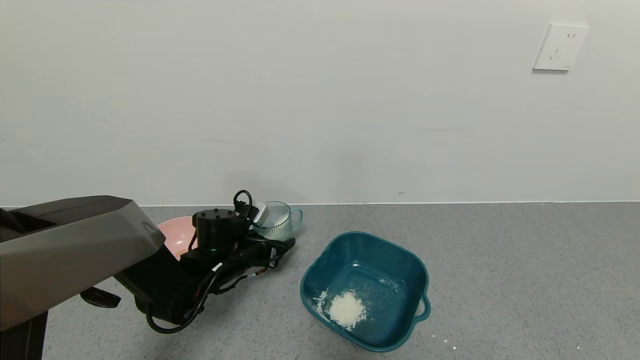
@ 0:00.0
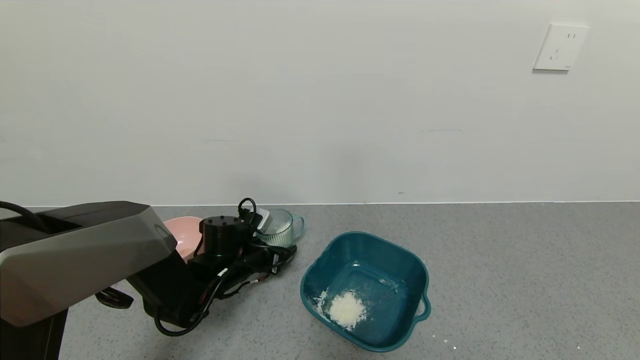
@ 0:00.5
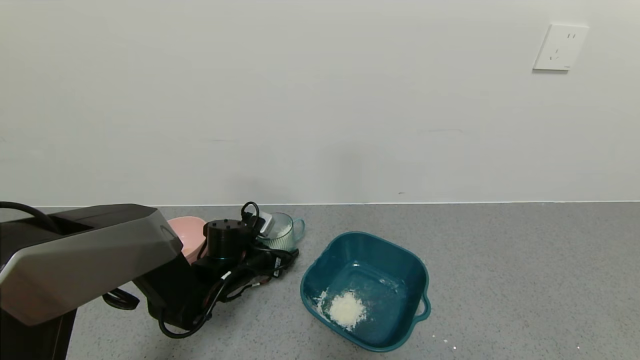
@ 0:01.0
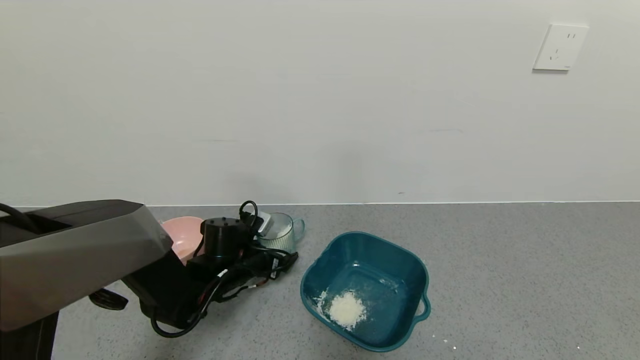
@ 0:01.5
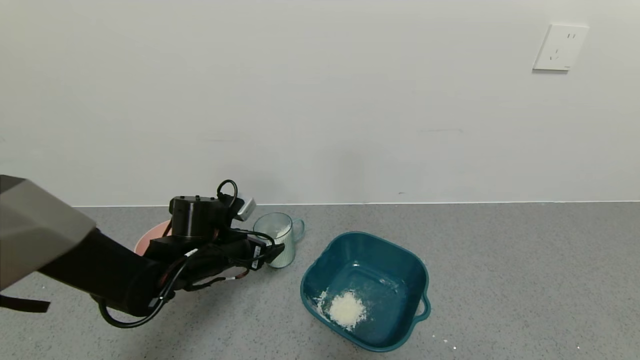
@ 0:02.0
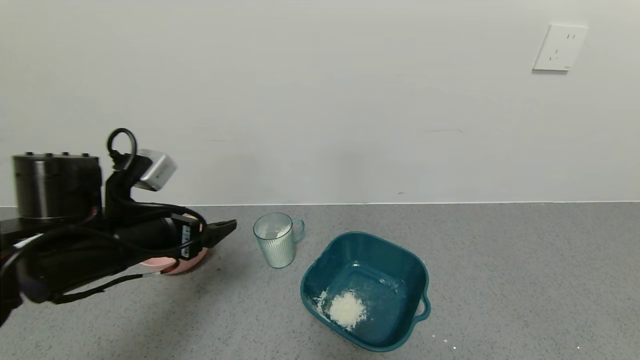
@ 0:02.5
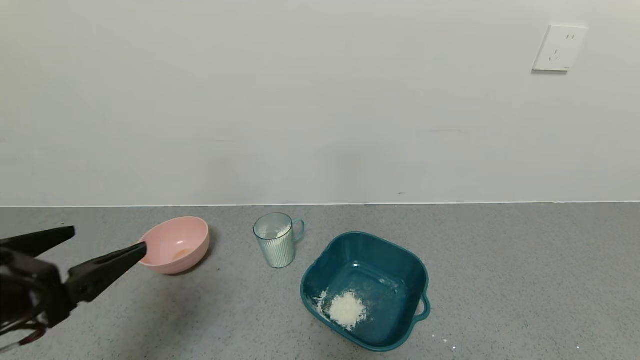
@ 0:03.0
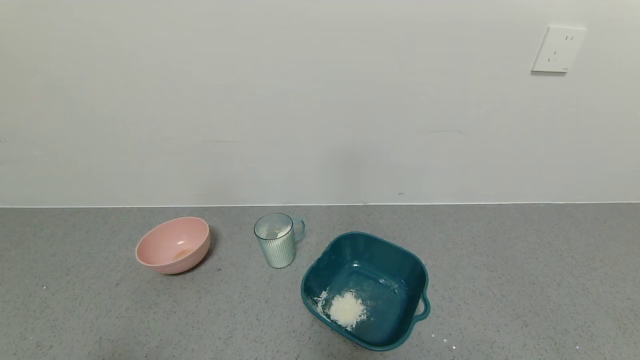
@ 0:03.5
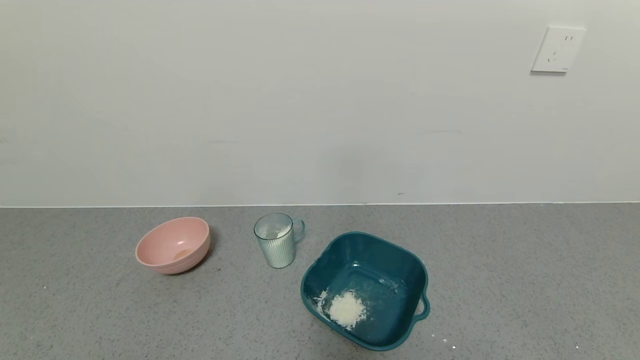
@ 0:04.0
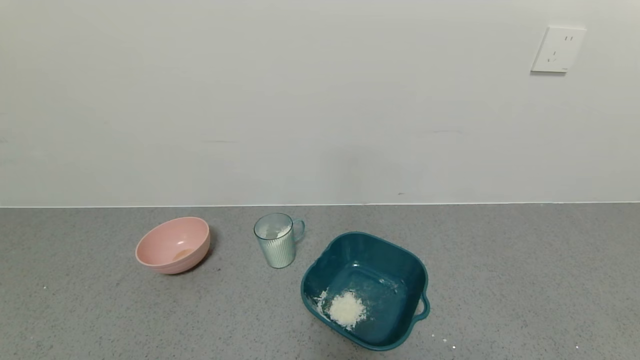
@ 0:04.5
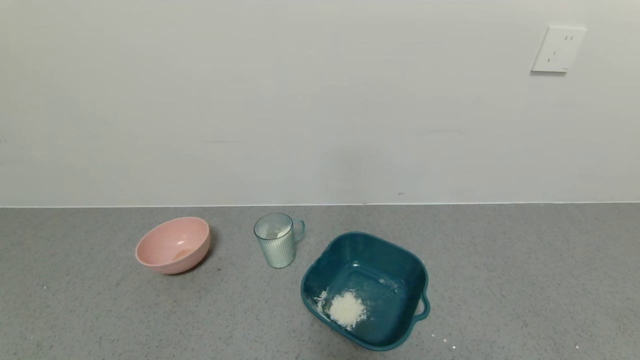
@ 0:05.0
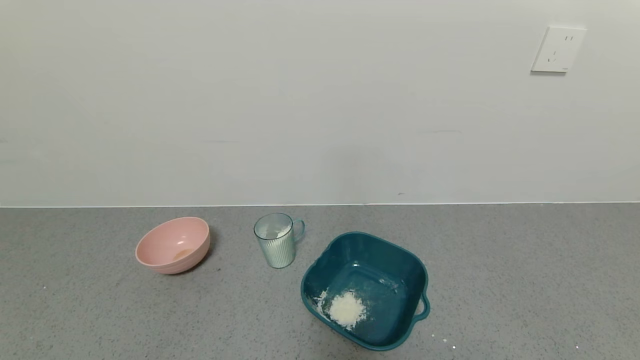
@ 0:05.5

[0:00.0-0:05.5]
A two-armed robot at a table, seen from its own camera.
Task of the whole recording: use a gripper to pick up the cup and pour the powder into a bowl or tray.
Step, 0:00.0 to 0:02.0: Place the glass cup down with the left gripper.
0:00.0 to 0:02.0: The left gripper is displaced upward by approximately 5 cm, and opens its fingers.
0:02.0 to 0:03.5: The left gripper moves backward, some 35 cm.
